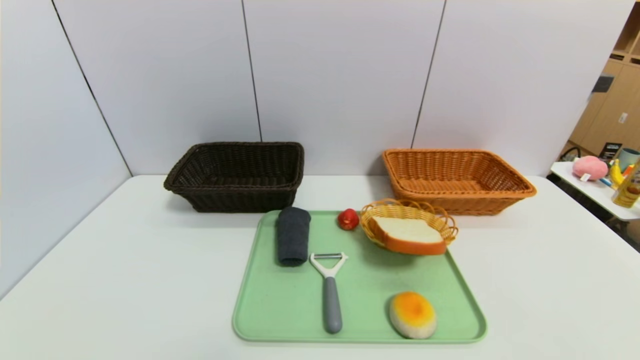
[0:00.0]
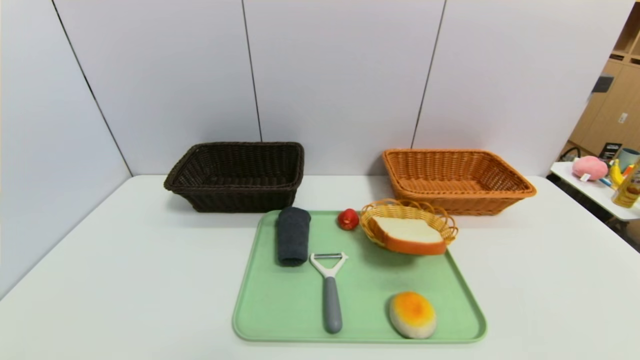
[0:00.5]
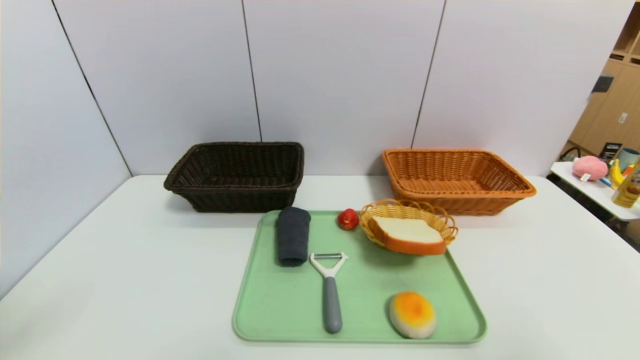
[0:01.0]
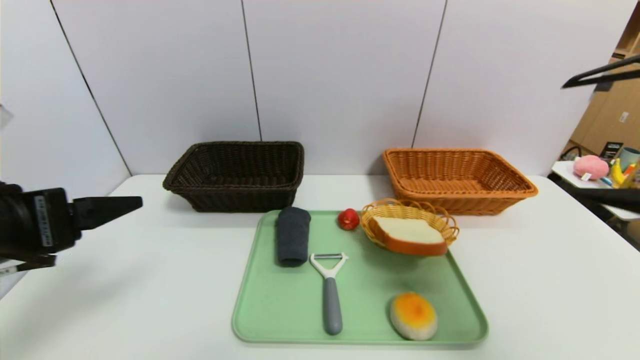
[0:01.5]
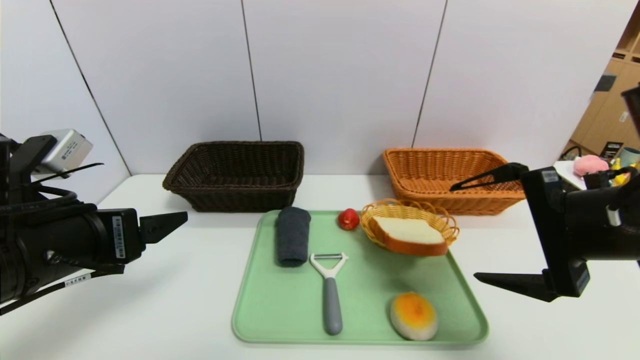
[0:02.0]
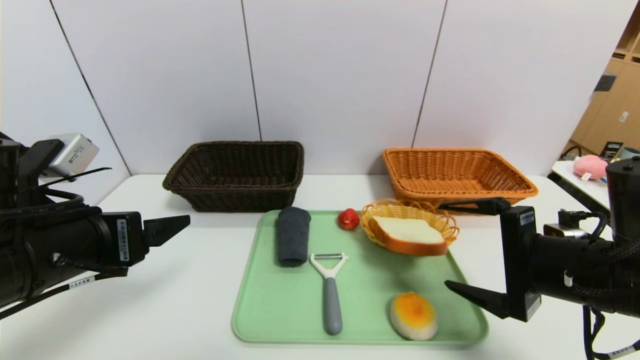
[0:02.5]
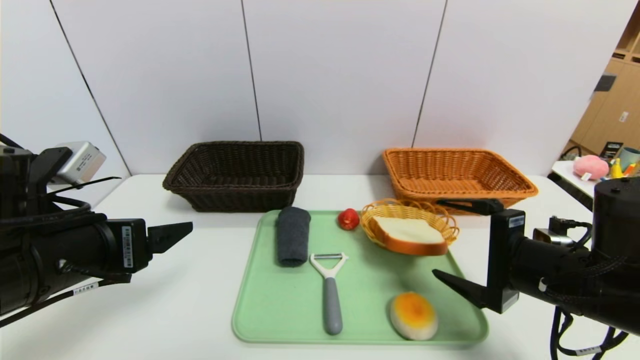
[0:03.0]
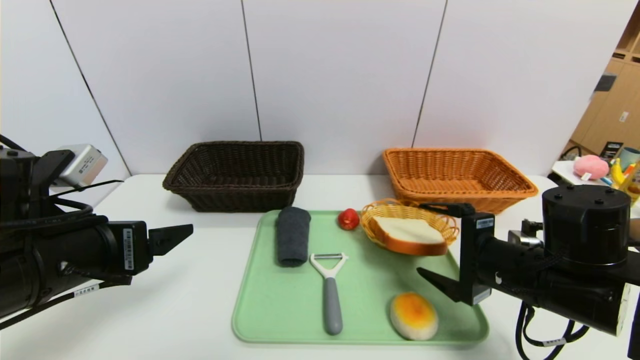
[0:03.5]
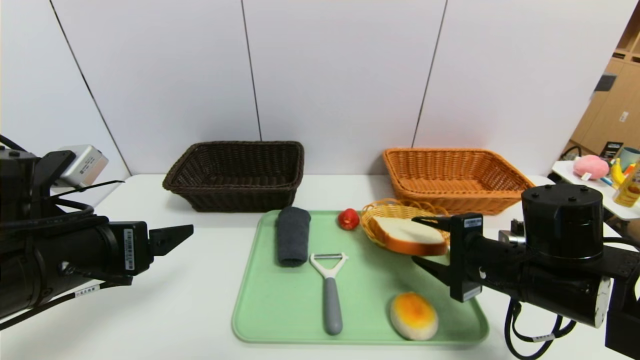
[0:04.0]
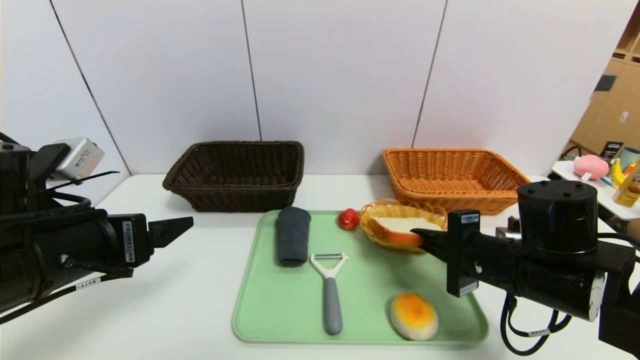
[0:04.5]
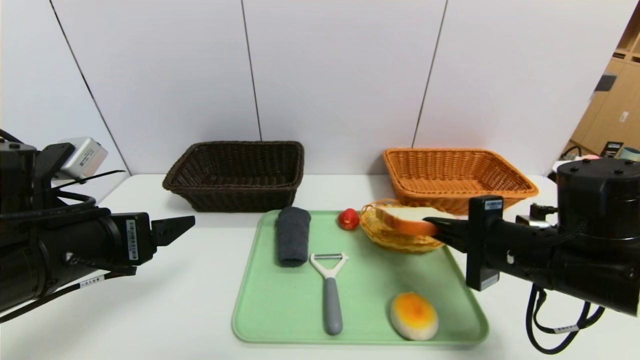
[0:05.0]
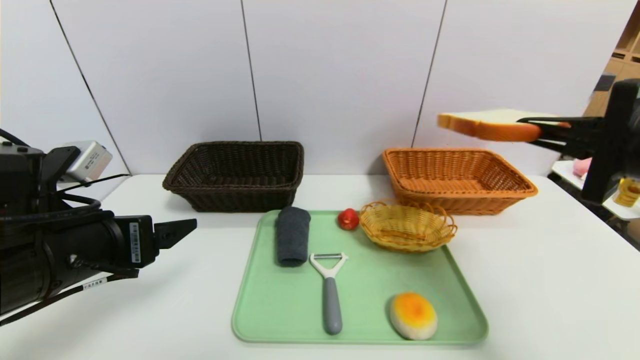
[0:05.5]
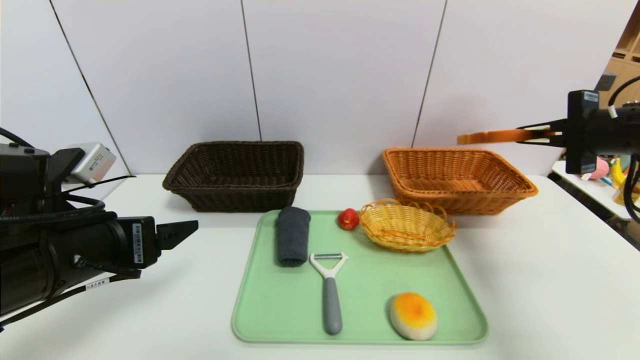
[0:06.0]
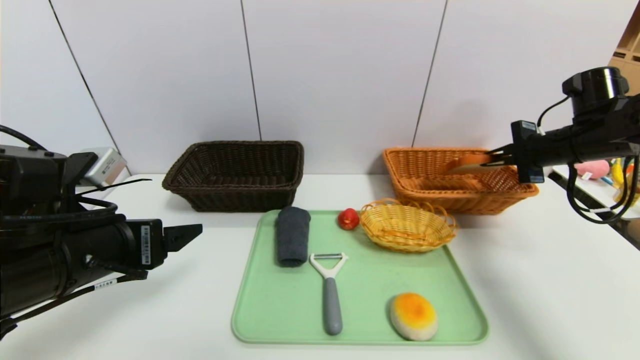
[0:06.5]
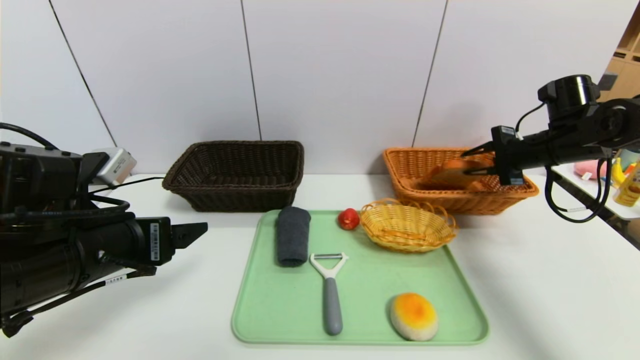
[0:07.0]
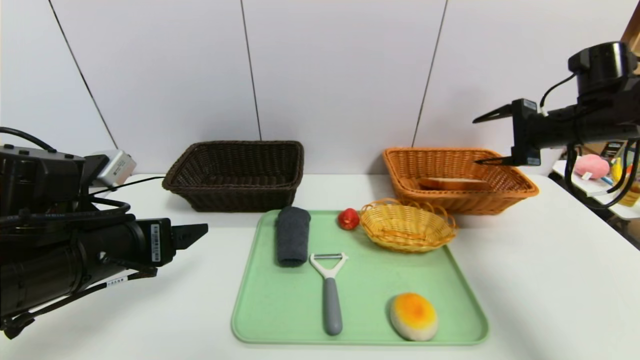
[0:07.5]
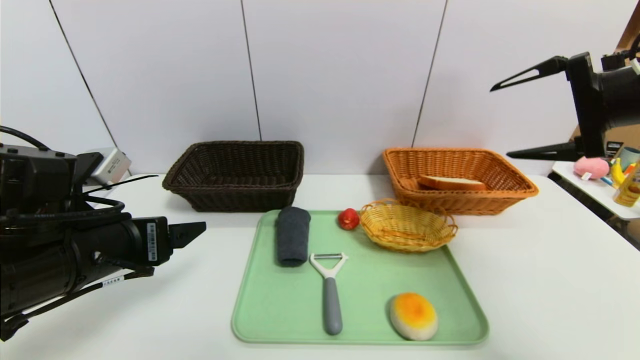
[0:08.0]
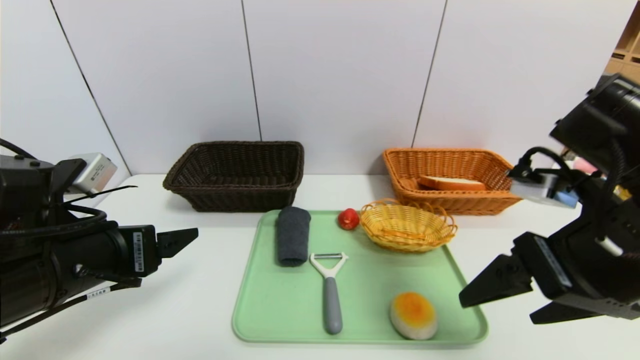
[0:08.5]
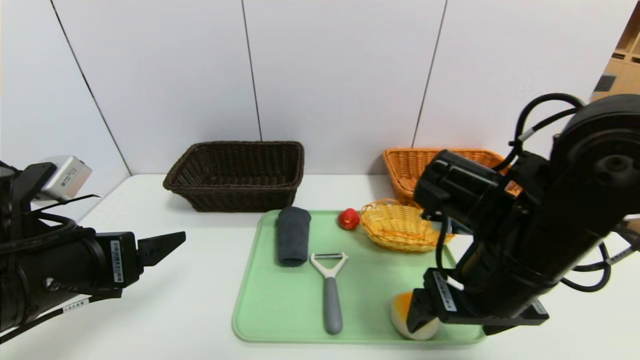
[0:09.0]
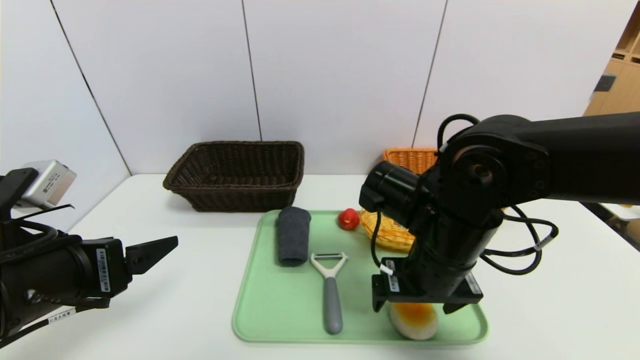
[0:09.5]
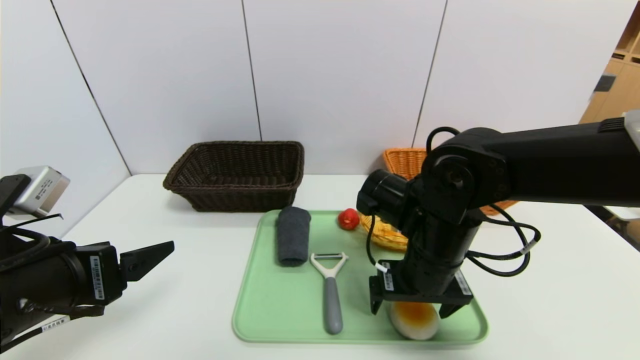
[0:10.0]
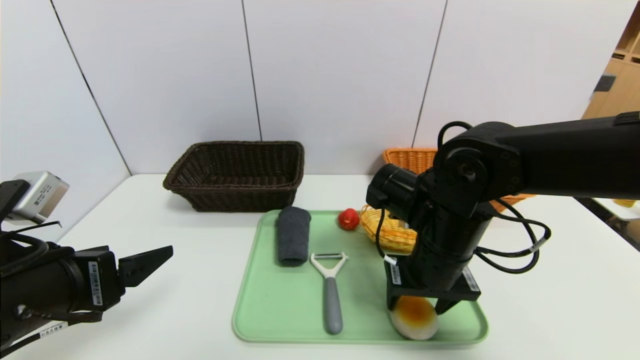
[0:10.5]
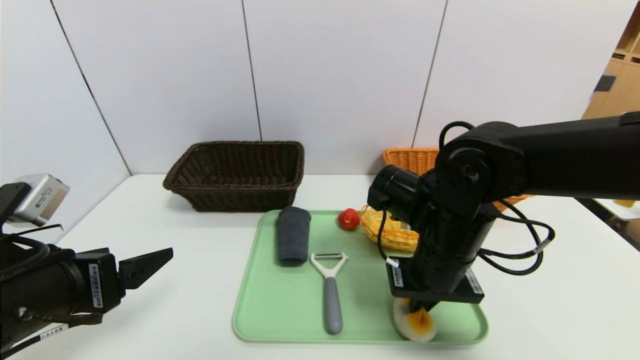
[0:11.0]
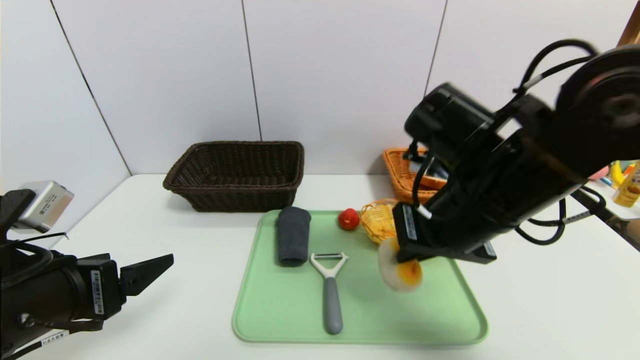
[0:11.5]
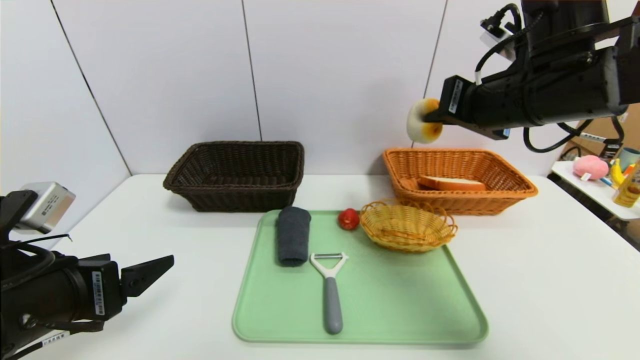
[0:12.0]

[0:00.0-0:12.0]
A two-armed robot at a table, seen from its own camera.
Task of the whole recording: place the food in the right basket with the right gripper, and place the non food items in the left basket with the left gripper.
Step, 0:00.0 to 0:07.5: Grasp the bread slice and put it in the right basket.
0:00.0 to 0:02.0: The left gripper goes some 25 cm forward and upward. The right gripper travels forward, upward and to the left by approximately 30 cm.
0:02.0 to 0:04.0: The right gripper heads downward, covering some 10 cm, and closes.
0:04.0 to 0:06.0: The right gripper travels to the right, upward and forward by roughly 20 cm, and closes its fingers.
0:06.0 to 0:08.0: The right gripper travels upward and to the left by about 10 cm, goes forward and returns, about 10 cm each way, and opens its fingers.
0:08.0 to 0:10.0: The left gripper ends up roughly 5 cm from where it was, while the right gripper heads to the left and downward, covering roughly 25 cm.
0:10.0 to 0:12.0: The right gripper shifts roughly 20 cm upward and to the right, and closes.

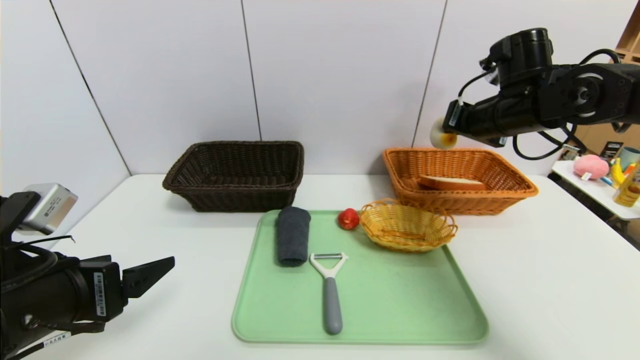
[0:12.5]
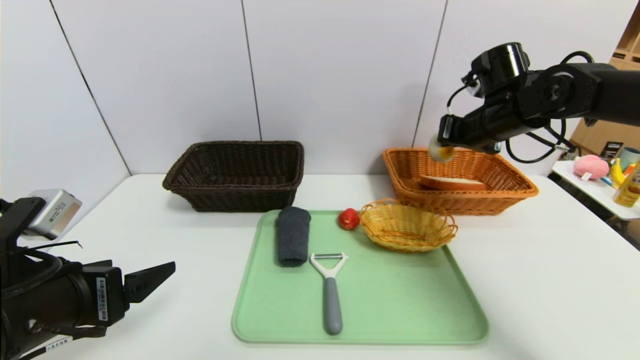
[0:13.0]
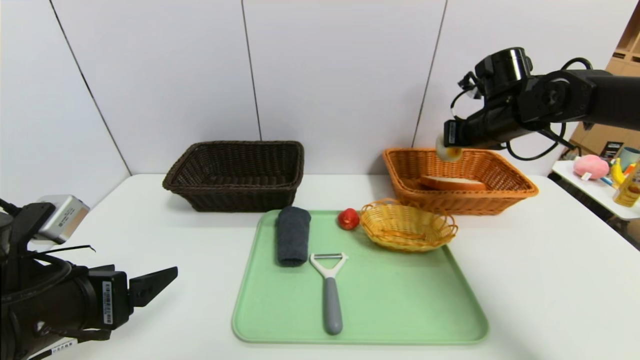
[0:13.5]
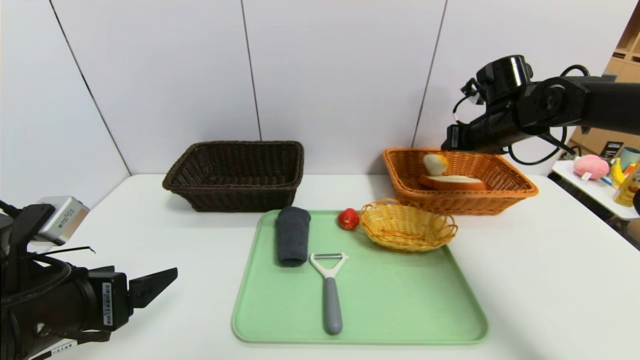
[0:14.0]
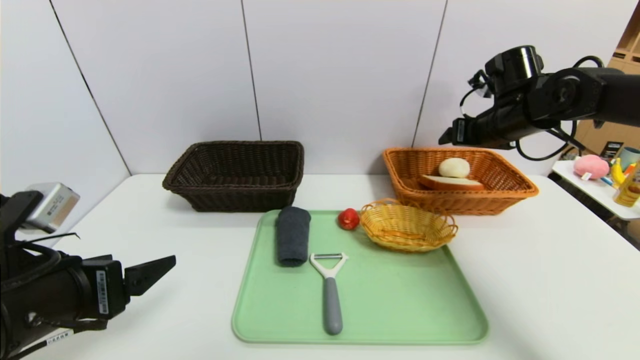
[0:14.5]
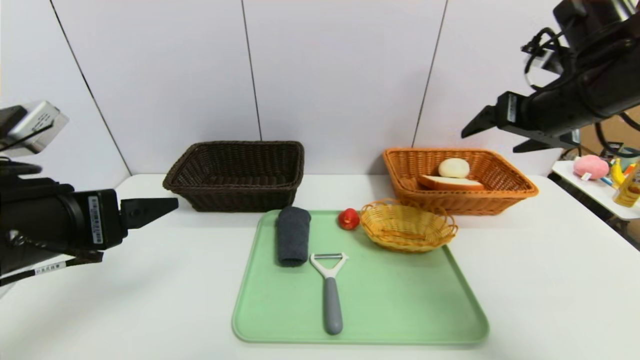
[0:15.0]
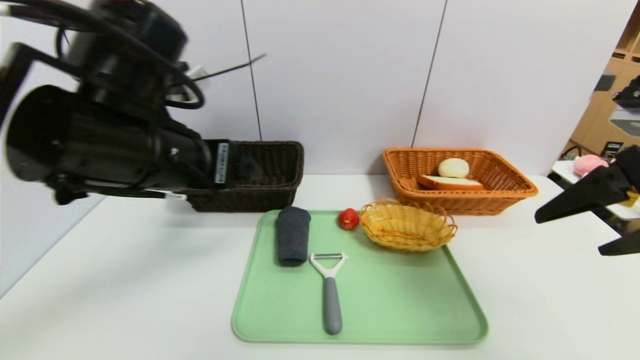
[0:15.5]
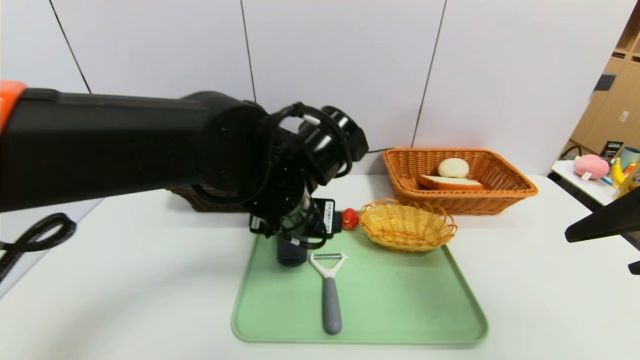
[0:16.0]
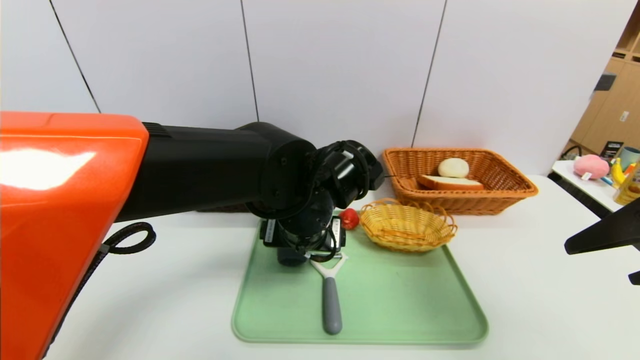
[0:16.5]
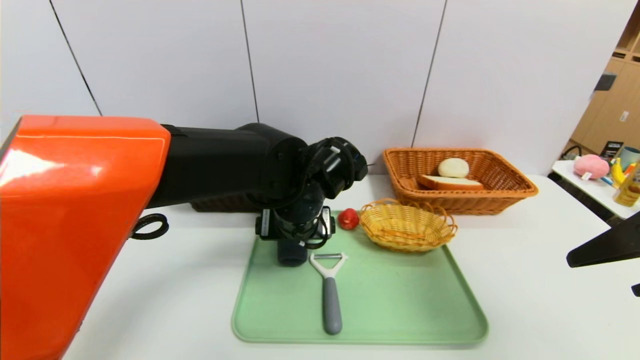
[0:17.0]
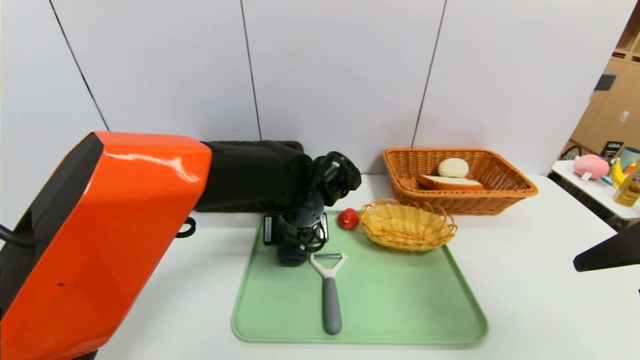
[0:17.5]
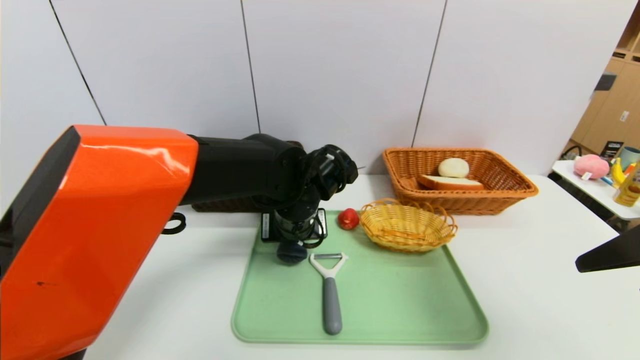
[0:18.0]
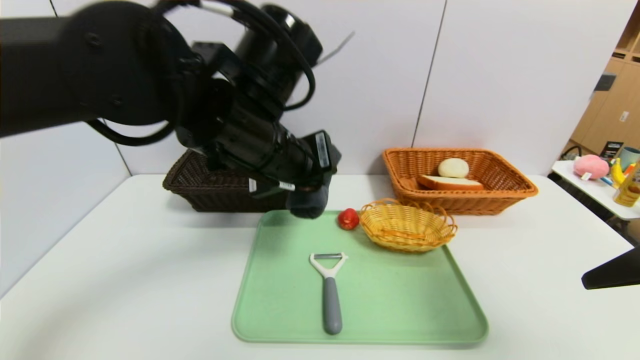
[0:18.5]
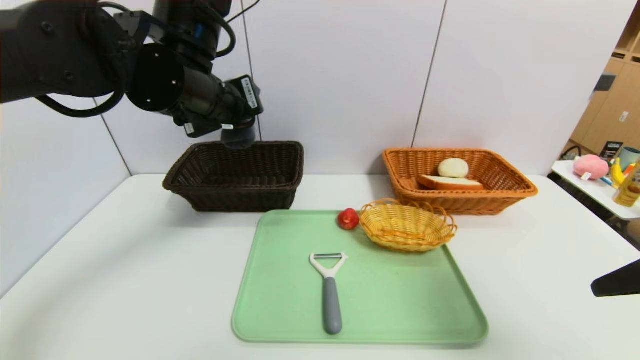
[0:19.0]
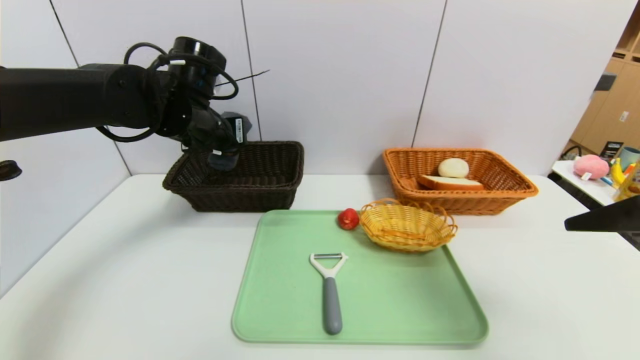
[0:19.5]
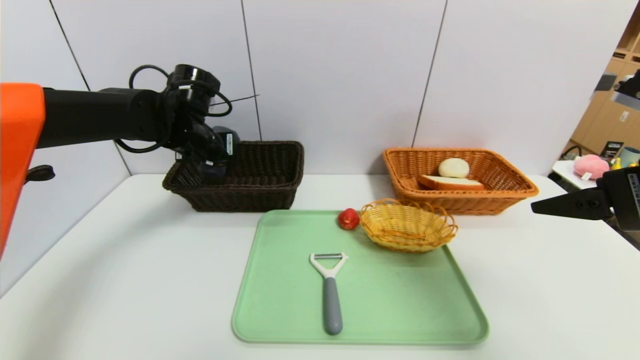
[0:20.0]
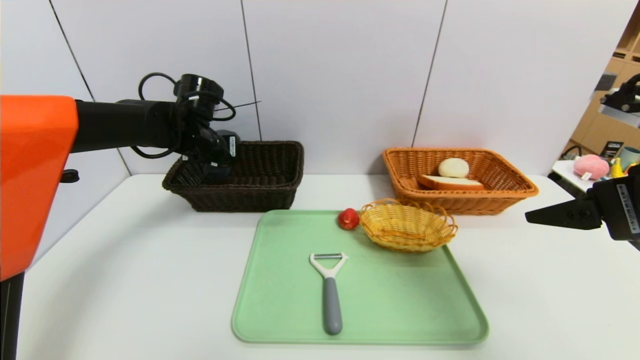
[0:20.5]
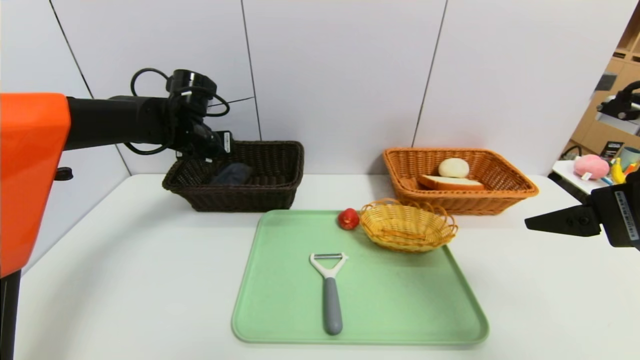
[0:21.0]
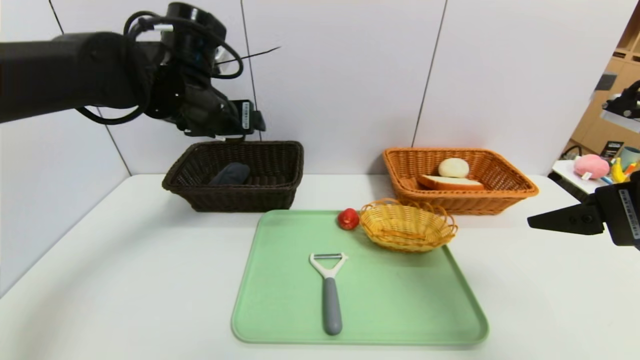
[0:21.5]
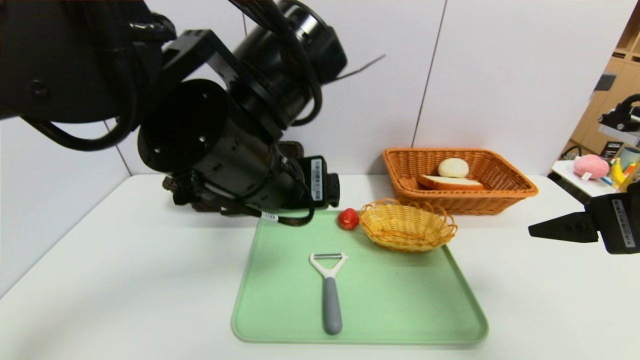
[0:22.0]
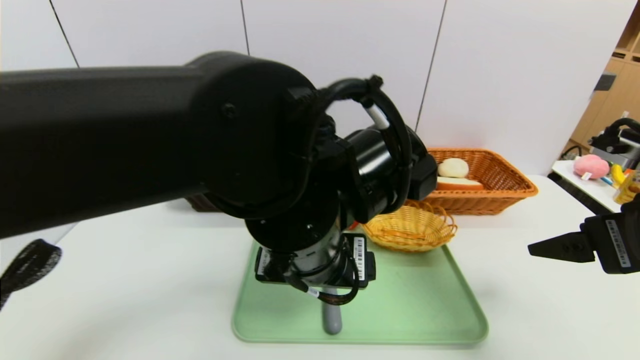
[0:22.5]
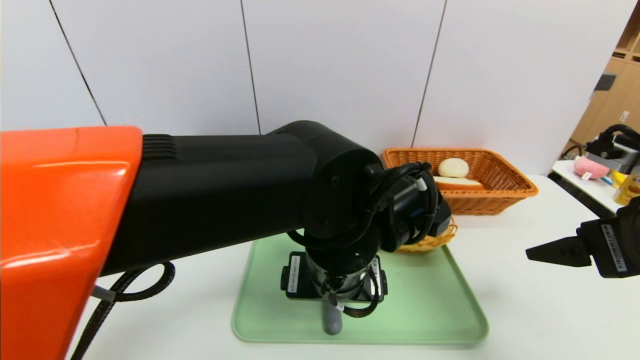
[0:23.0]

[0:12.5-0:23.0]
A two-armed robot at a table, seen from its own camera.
Task of the whole recording: place the food in the right basket with the right gripper, and place the non food items in the left basket with the left gripper.
Step, 0:14.5 to 0:21.0: Grasp the grey towel and put it in the left basket.
0:12.5 to 0:14.5: The right gripper opens its fingers.
0:14.5 to 0:16.5: The left gripper travels to the right and forward by roughly 25 cm. Meanwhile the right gripper goes roughly 30 cm backward.
0:16.5 to 0:19.0: The left gripper is displaced upward and to the left by some 20 cm, and closes up.
0:19.0 to 0:21.0: The right gripper travels forward by roughly 5 cm; the left gripper moves forward, downward and to the left, about 15 cm, and opens up.
0:21.0 to 0:23.0: The left gripper is displaced to the right and backward by approximately 35 cm.
